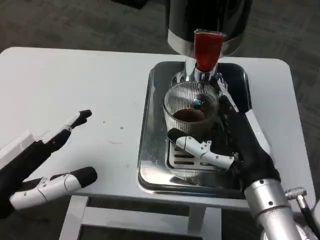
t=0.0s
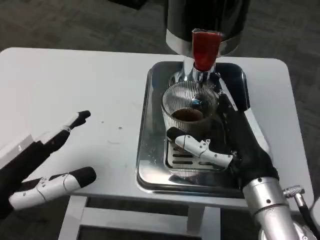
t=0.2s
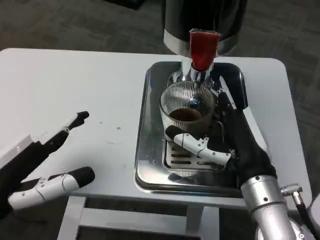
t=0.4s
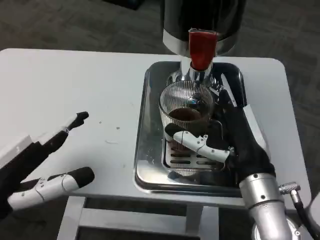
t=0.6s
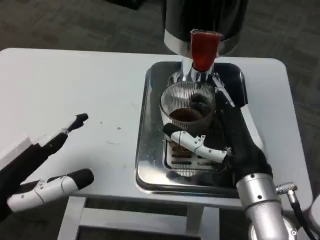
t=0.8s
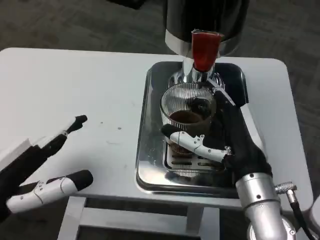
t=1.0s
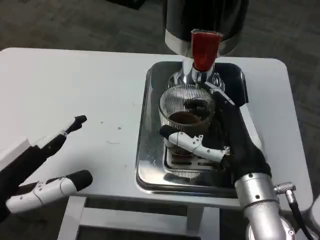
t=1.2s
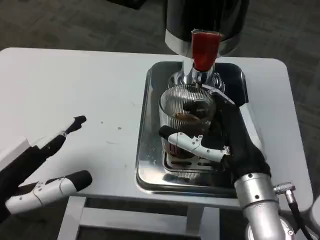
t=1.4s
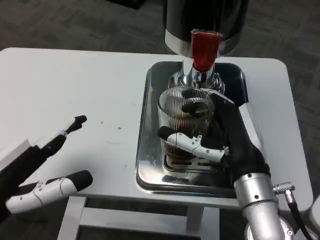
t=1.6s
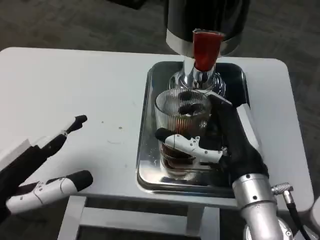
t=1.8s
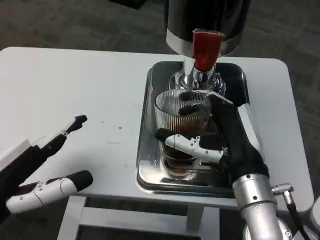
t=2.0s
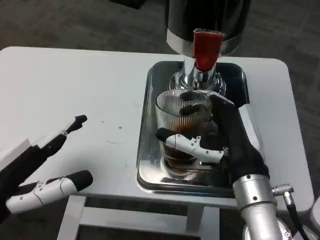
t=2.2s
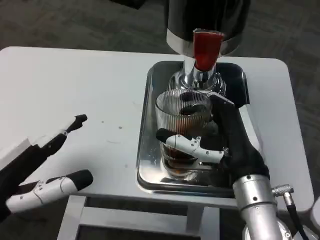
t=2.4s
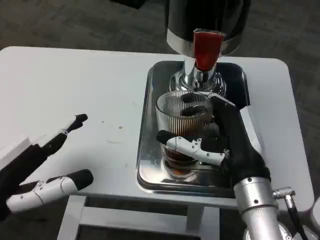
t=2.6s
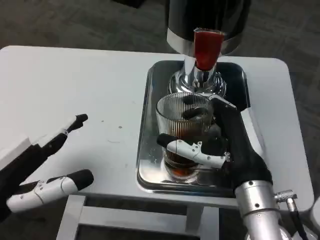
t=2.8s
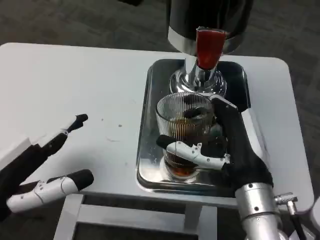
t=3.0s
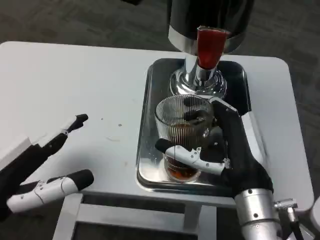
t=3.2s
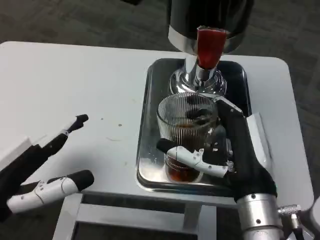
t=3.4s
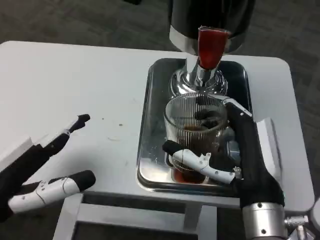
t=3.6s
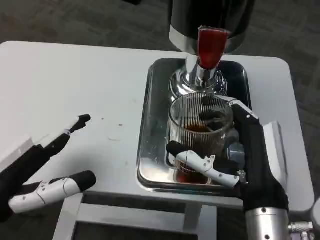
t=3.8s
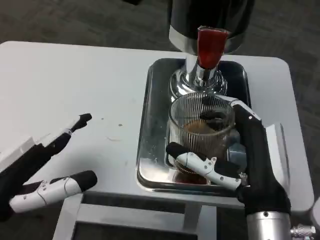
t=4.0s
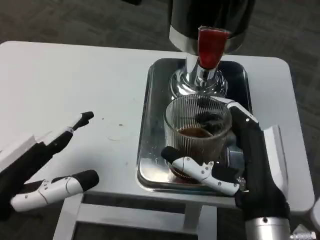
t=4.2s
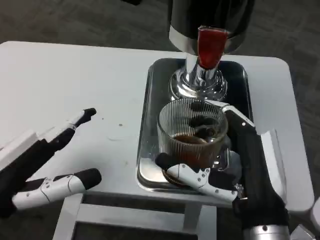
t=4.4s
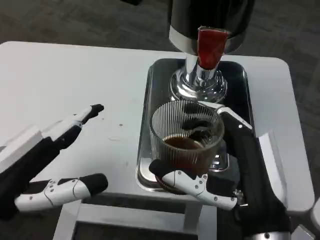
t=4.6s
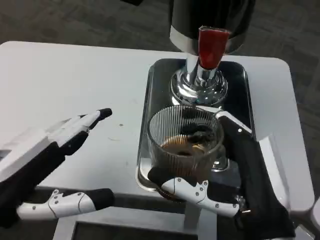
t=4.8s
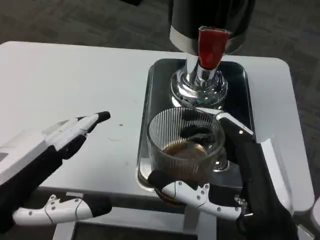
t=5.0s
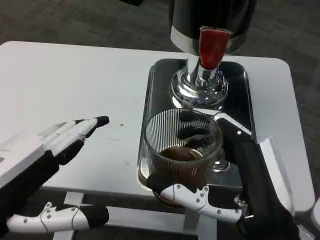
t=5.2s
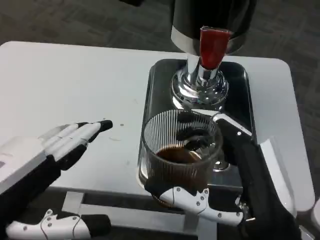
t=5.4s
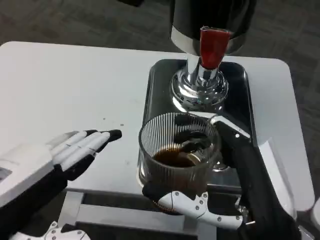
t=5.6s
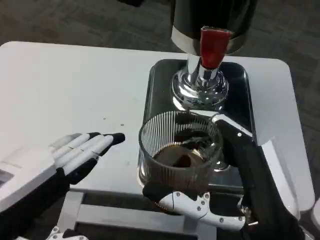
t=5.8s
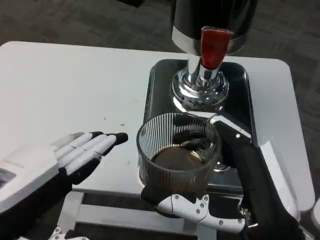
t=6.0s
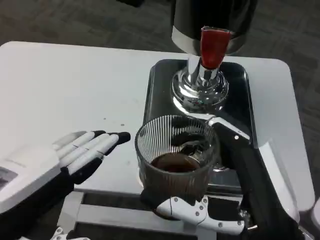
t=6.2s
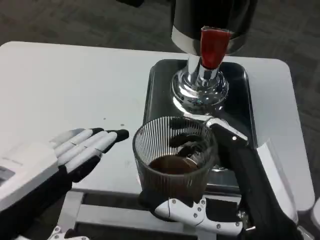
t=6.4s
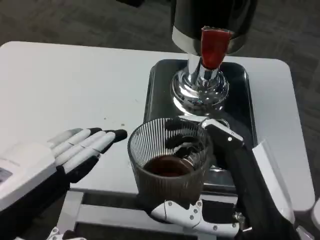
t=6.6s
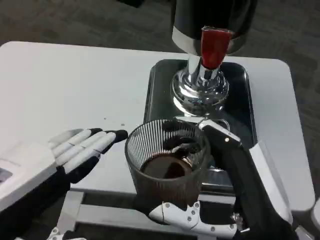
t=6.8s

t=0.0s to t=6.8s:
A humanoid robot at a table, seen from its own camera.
Task of the whole recording: Grasp the cup under the faucet to collect the drink, then remove the cup.
t=0.0s to t=1.4s: The hands stay close to where they were, moving slightly.
t=1.4s to t=2.8s: Both hands stay put.
t=4.0s to t=5.4s: The right hand heads backward, covering approximately 5 cm.

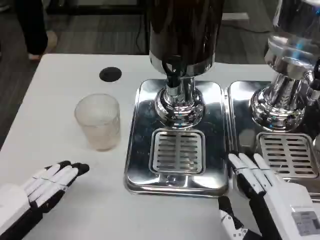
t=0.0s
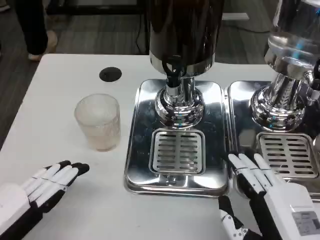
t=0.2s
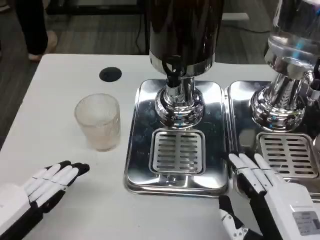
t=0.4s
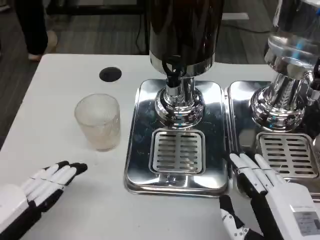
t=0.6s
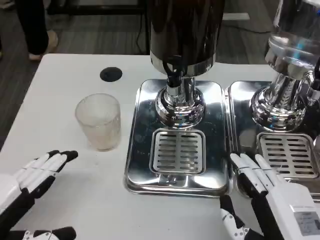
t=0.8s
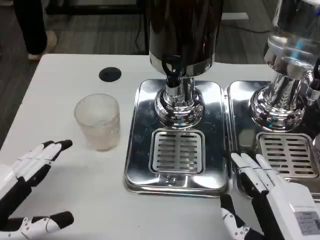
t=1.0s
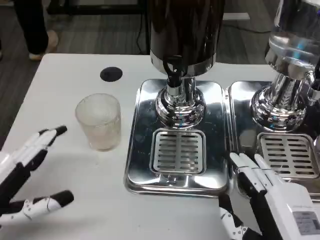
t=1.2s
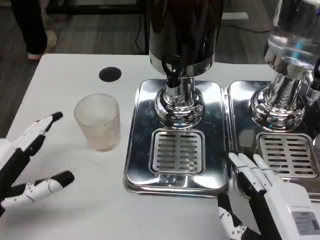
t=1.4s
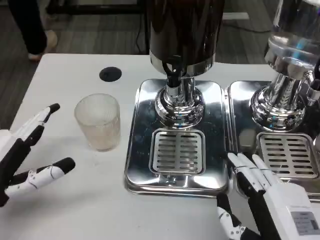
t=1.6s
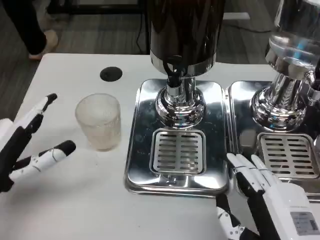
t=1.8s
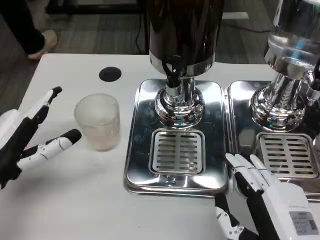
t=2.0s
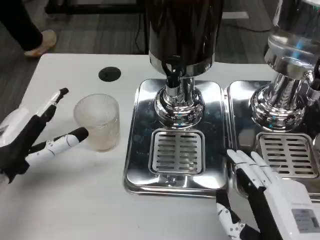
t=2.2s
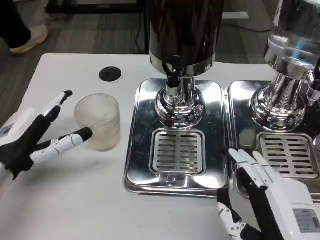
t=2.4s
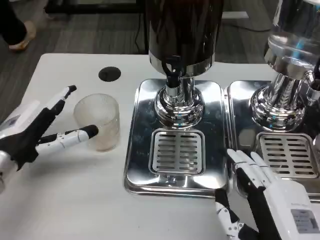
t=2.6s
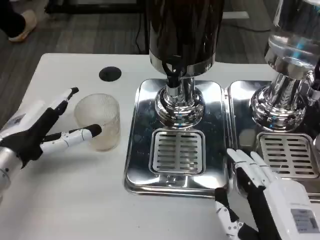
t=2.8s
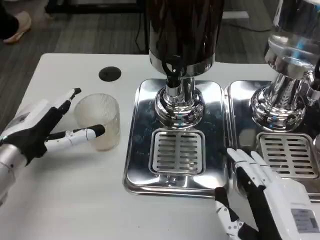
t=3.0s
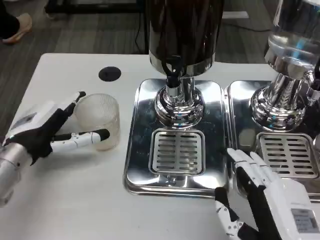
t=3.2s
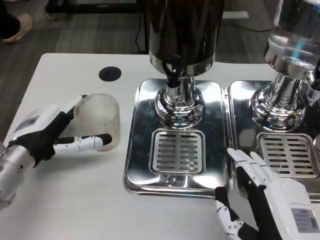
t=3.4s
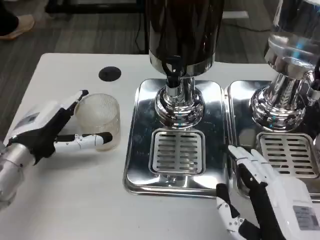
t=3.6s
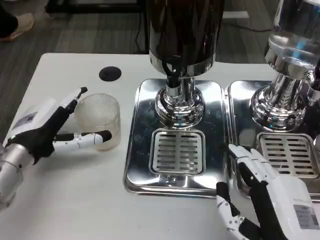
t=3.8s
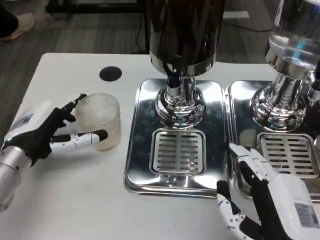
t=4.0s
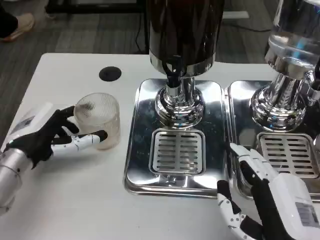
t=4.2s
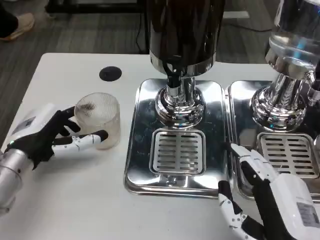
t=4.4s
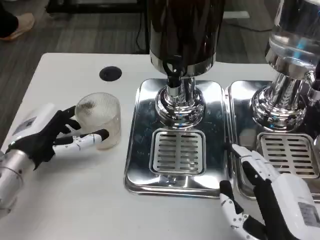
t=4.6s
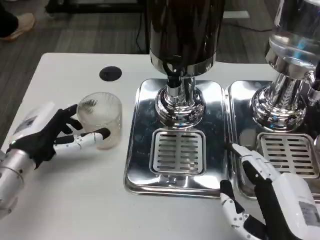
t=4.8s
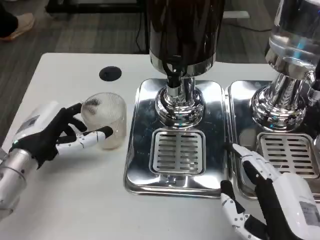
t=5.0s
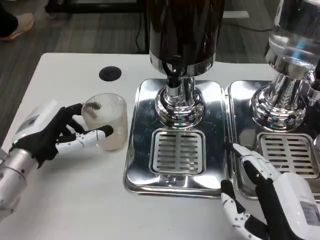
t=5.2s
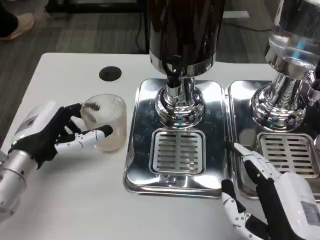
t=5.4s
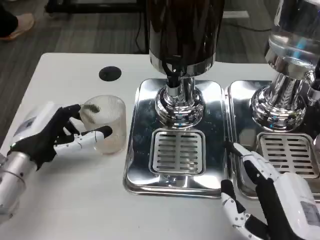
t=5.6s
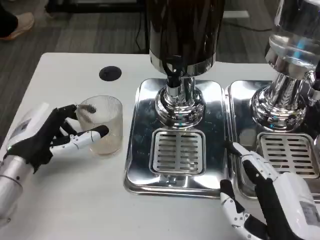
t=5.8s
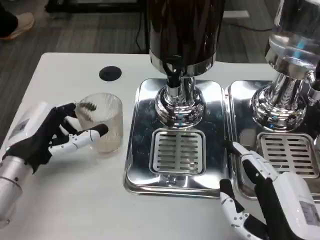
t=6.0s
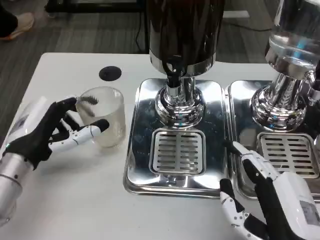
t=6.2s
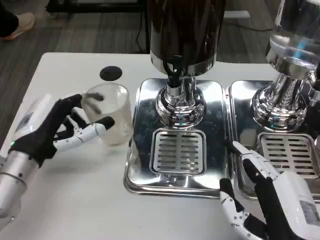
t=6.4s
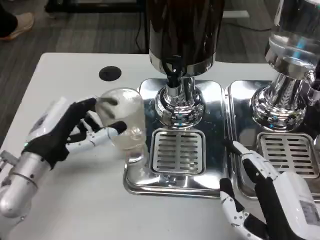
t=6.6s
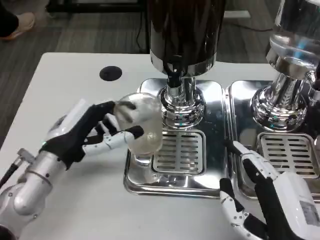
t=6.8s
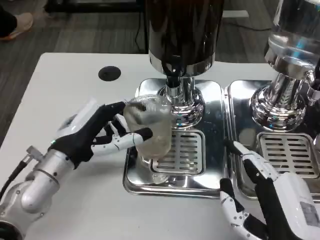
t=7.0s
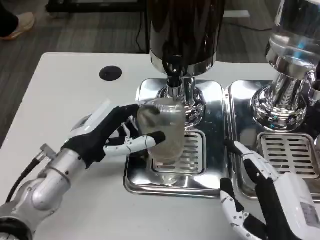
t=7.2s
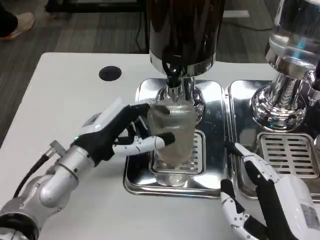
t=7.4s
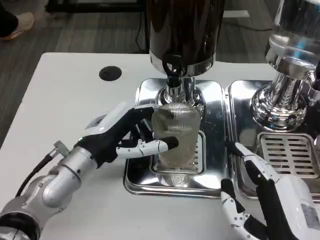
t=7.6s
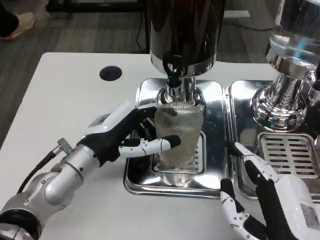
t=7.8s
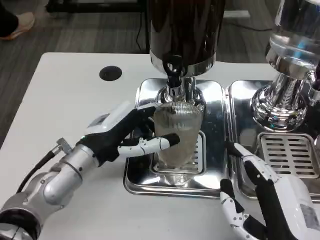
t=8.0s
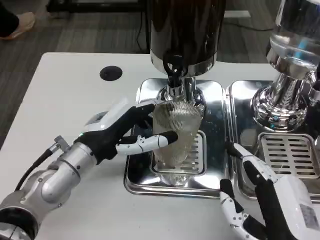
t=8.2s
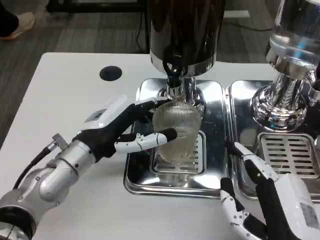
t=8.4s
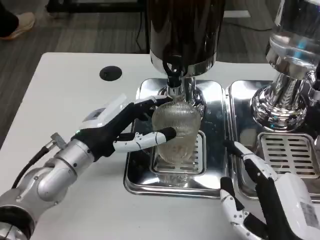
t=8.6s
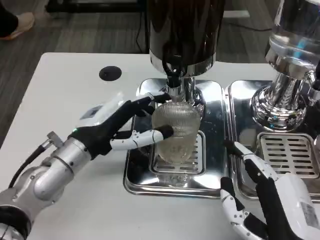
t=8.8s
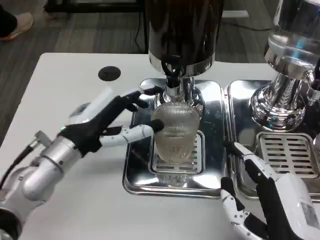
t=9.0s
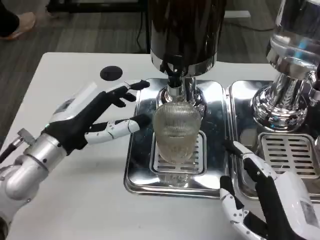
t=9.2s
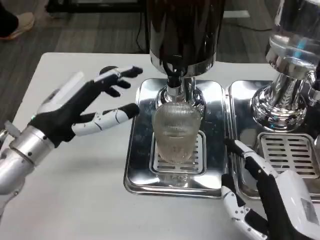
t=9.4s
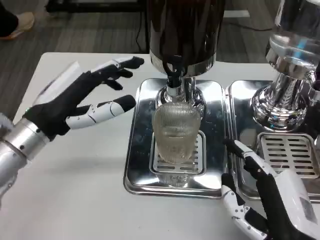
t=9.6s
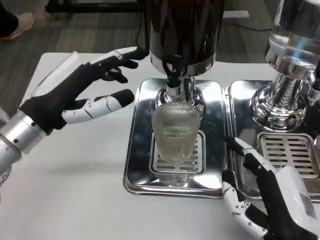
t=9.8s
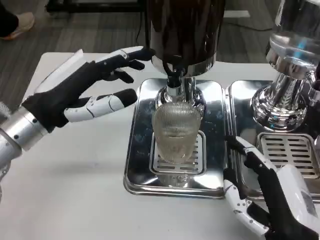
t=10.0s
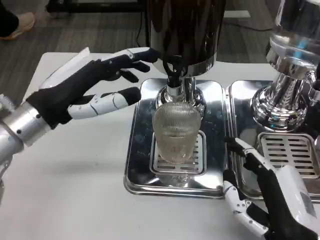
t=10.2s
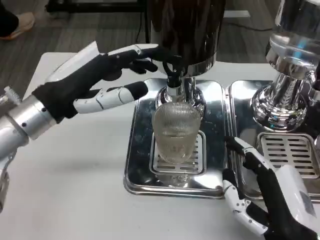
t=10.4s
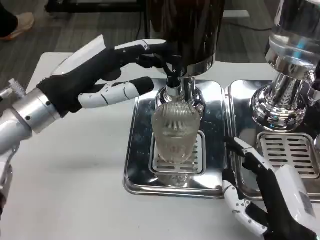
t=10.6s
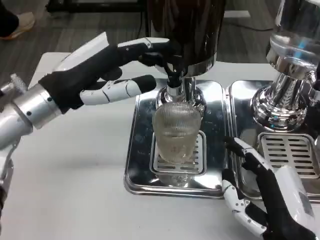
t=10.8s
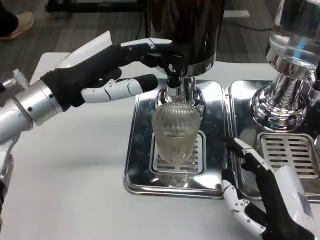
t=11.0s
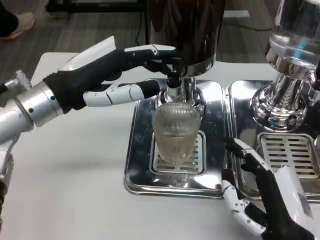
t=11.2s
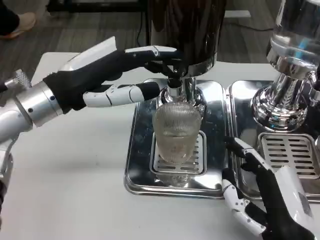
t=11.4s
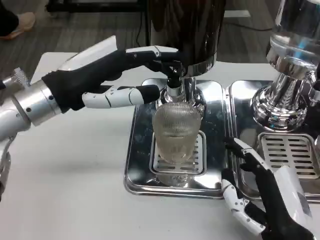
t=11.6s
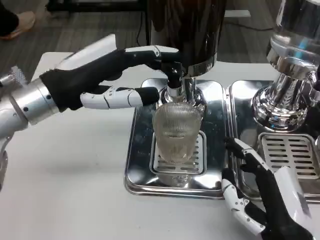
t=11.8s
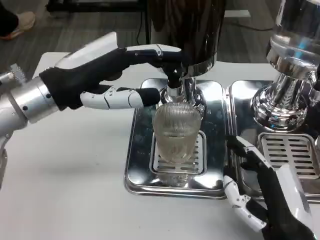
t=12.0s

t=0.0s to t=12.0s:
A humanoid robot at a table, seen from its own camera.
Task of the whole recording: Grasp the cup under the faucet to collect the drink, then remove the cup.
t=0.0s to t=1.6s: The left hand moves forward, approximately 5 cm.
t=1.6s to t=3.0s: The left hand moves forward, some 10 cm.
t=3.0s to t=6.0s: The hands make only small movements.
t=6.0s to t=7.6s: The left hand moves to the right, roughly 10 cm.
t=9.0s to t=10.4s: The left hand is displaced upward by some 10 cm.
t=10.4s to t=12.0s: There are only small adjustments of the hands.

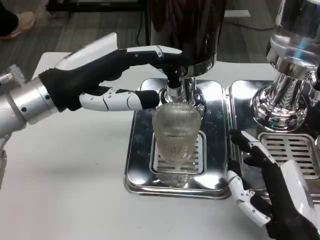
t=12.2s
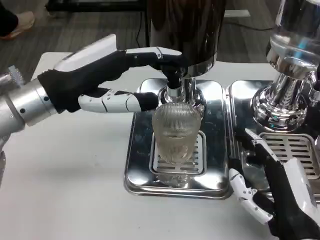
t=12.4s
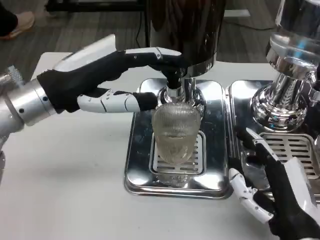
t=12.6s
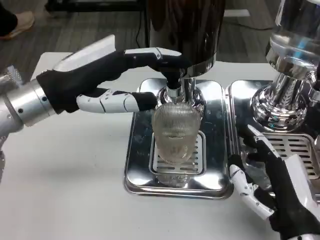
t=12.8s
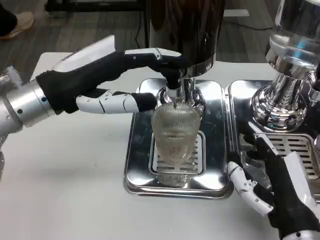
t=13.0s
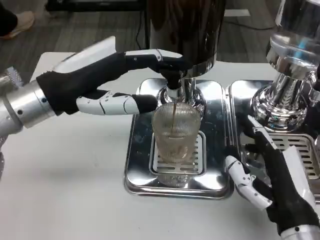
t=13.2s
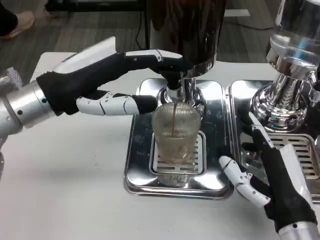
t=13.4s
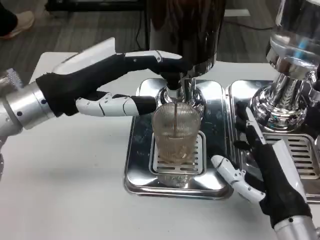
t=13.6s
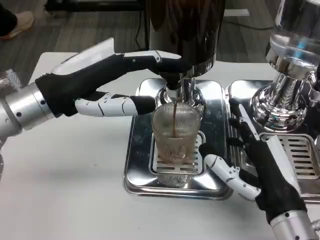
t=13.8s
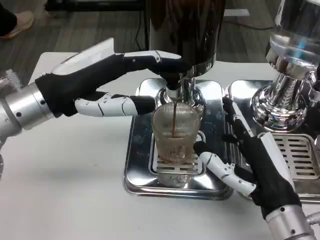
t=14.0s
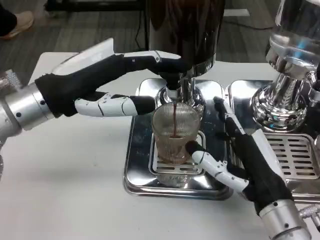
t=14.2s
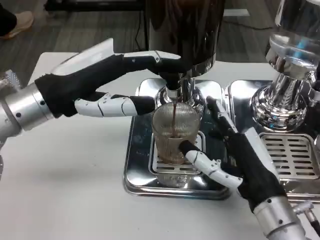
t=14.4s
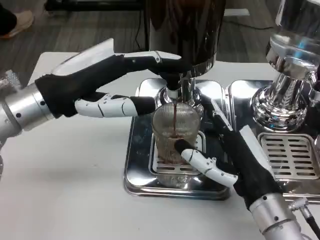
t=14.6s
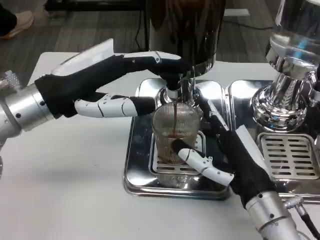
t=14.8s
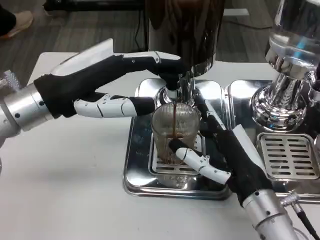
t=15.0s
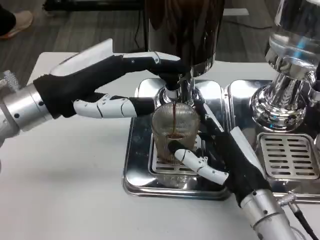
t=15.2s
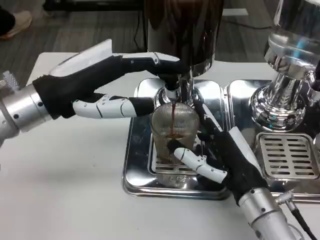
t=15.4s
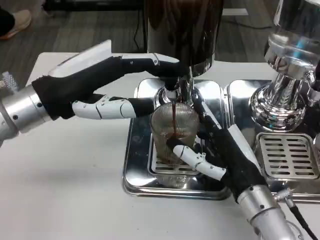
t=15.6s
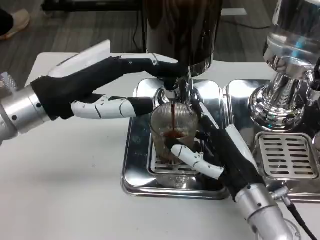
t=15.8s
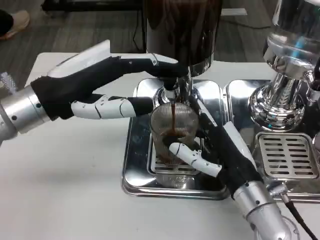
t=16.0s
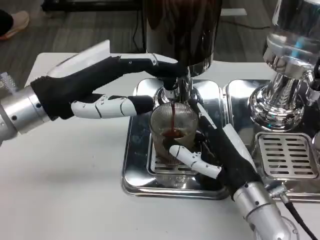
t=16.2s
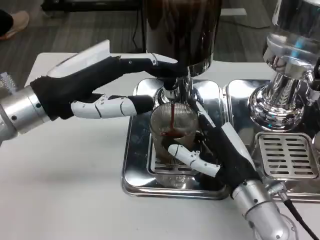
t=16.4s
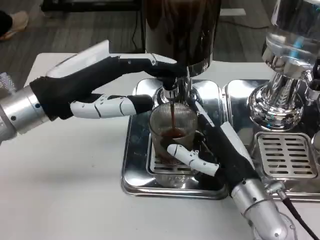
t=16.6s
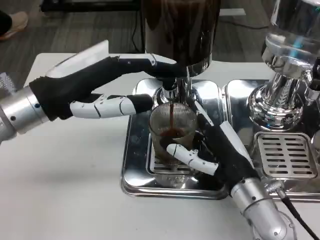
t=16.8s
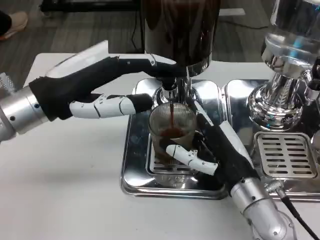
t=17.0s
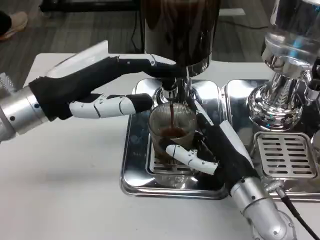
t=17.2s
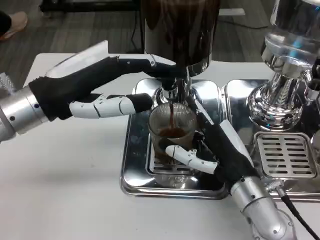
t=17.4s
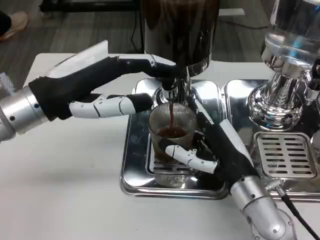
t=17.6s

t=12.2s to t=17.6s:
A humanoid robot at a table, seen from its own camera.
Task of the whole recording: Grasp the cup under the faucet to collect the drink, then remove the cup.
t=12.2s to t=13.6s: There are only small adjustments of the hands.
t=13.6s to t=15.0s: The hands make only small movements.
t=16.2s to t=17.6s: Both hands stay put.
